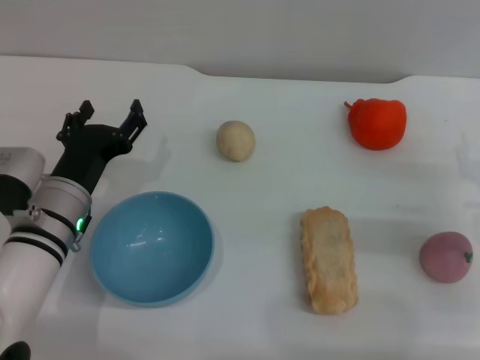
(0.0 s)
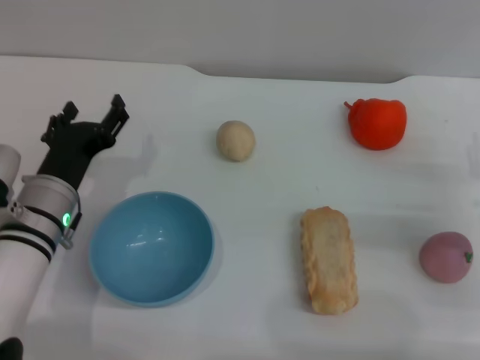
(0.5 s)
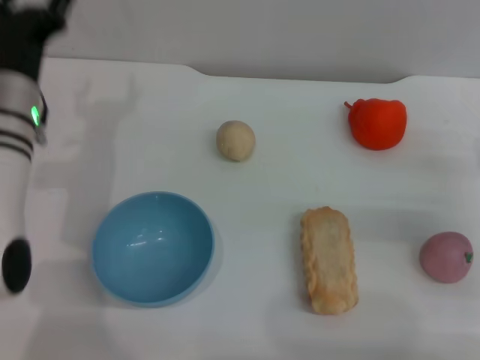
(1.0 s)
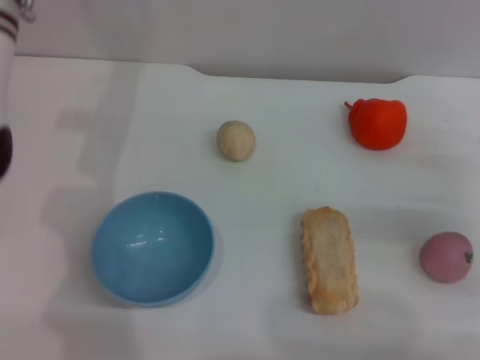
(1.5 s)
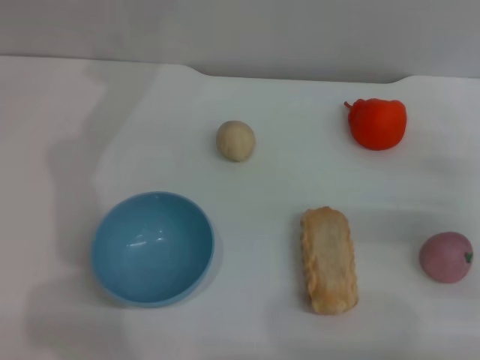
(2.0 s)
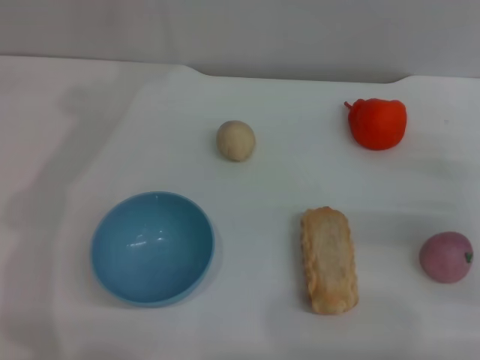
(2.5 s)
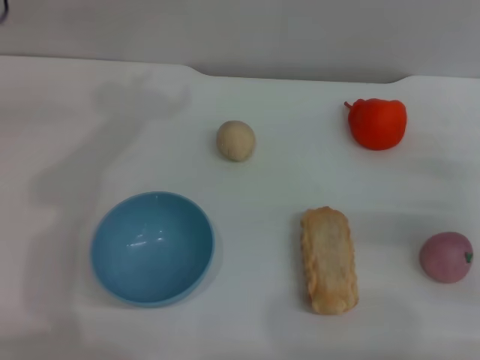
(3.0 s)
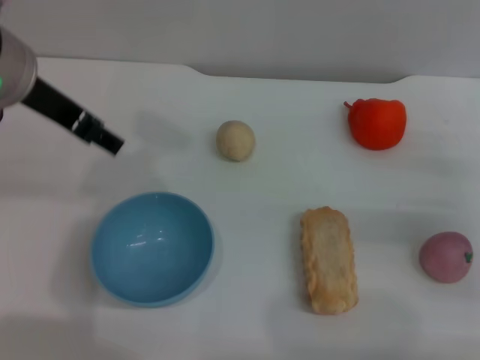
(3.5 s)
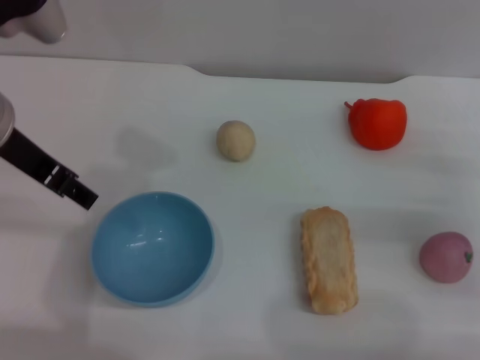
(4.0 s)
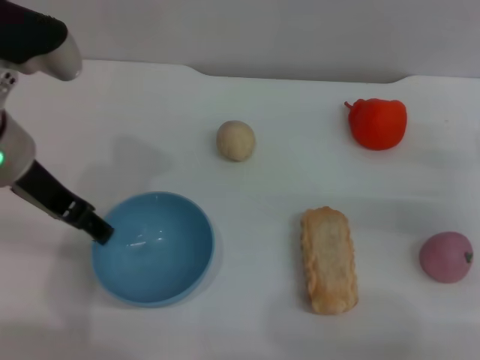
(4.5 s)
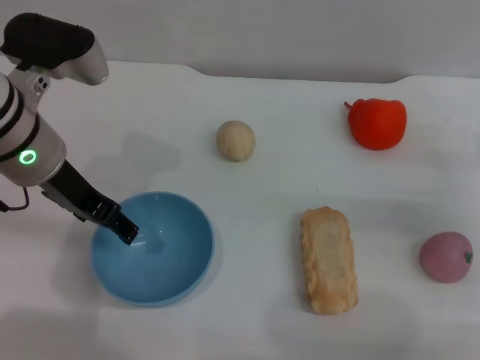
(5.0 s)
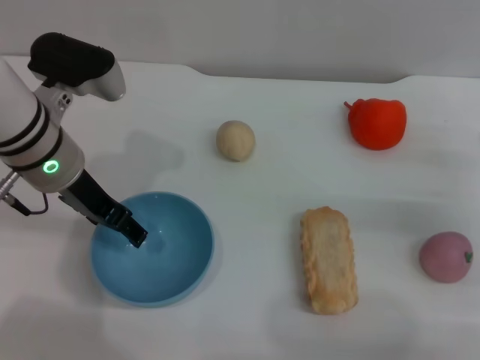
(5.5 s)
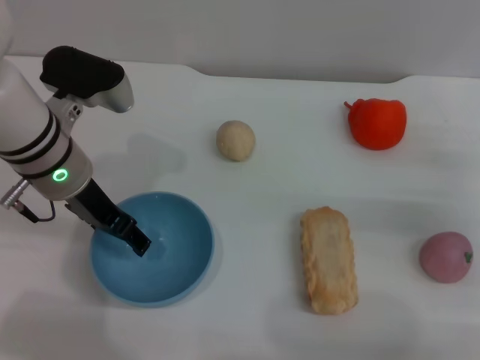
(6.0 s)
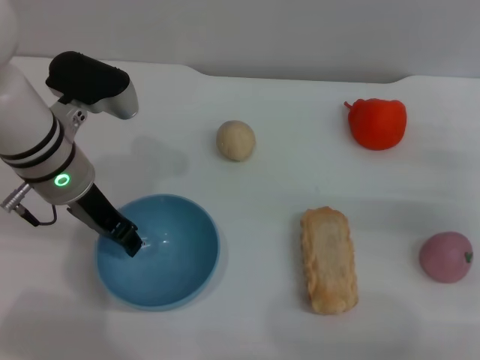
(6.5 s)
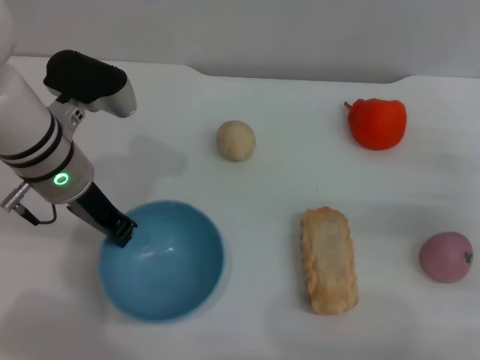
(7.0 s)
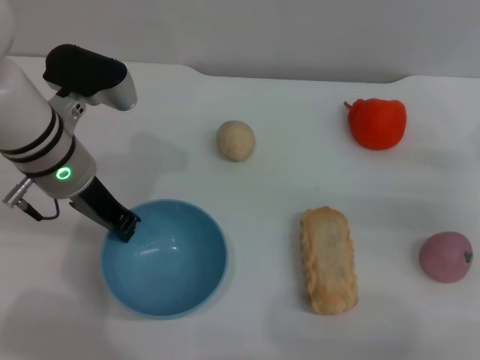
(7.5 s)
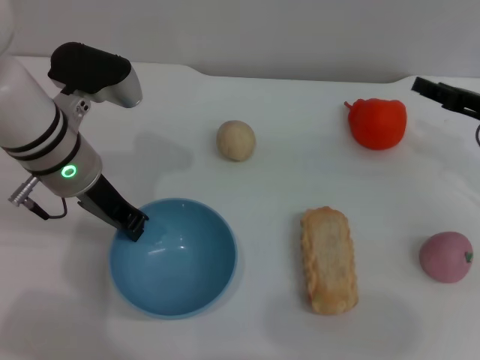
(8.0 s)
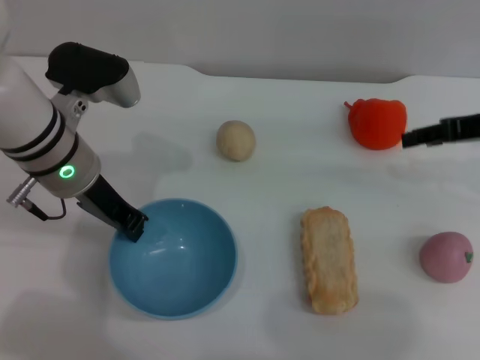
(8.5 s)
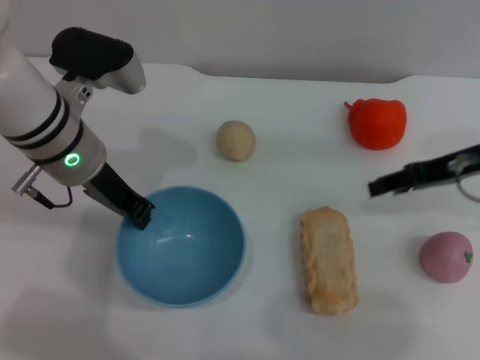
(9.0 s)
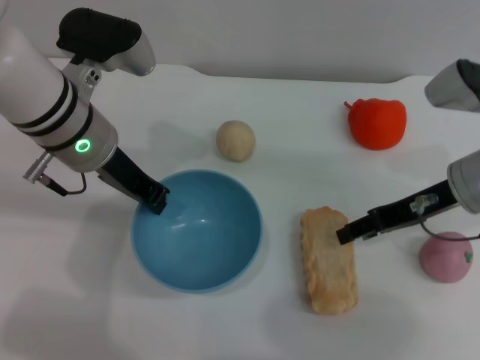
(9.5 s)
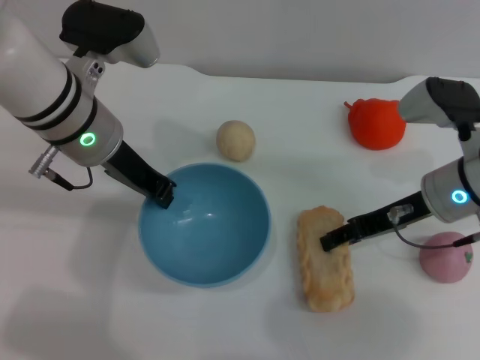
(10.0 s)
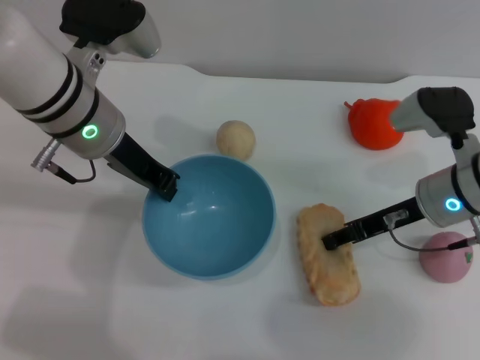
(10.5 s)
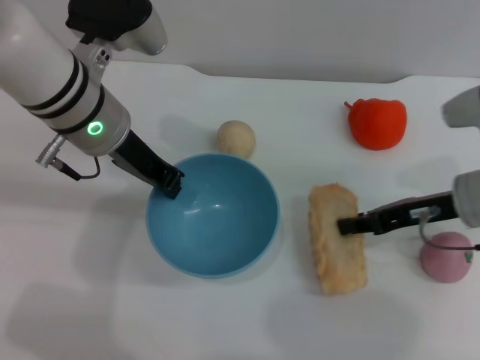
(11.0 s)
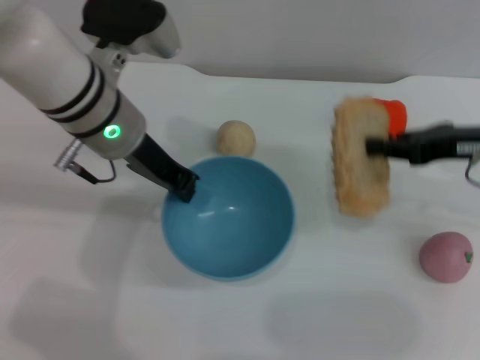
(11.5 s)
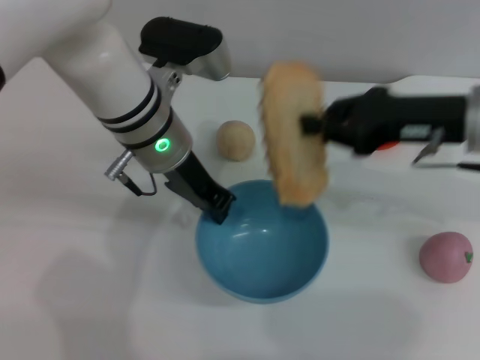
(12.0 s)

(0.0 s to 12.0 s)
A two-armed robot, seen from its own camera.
Task of the whole recording: put the bread into the blue bowl and pour it out repeatedly.
Step, 0.0 s - 9.0 s: Pick up the bowl with the left gripper.
Step, 9.5 s - 11.5 s: Pick up the bread with the right gripper.
0.0 s - 2.0 s: The left gripper is displaced upward and forward by roughly 30 cm.
2.0 s - 4.0 s: The left gripper is displaced backward by roughly 15 cm.
4.0 s - 6.0 s: The left gripper is displaced downward by some 10 cm.
6.0 s - 8.0 s: The right gripper moves forward, some 5 cm. Meanwhile the left gripper closes up.
8.0 s - 10.0 s: The right gripper goes some 10 cm to the left.
10.0 s - 12.0 s: The left gripper travels to the right by roughly 5 cm; the right gripper heads upward, covering about 10 cm, and closes its fingers.

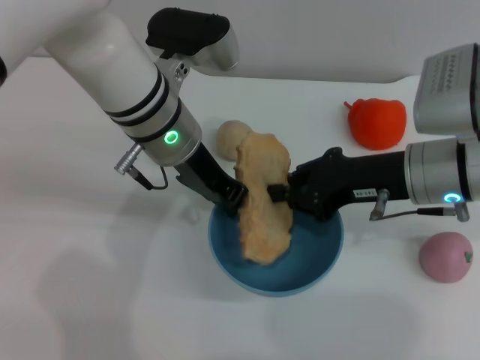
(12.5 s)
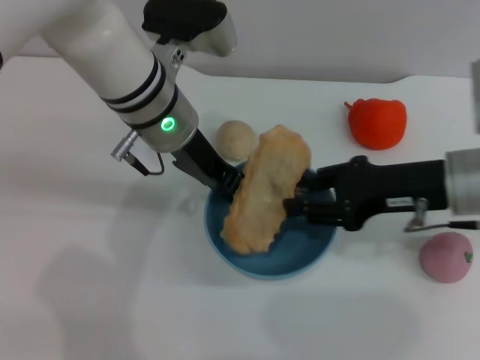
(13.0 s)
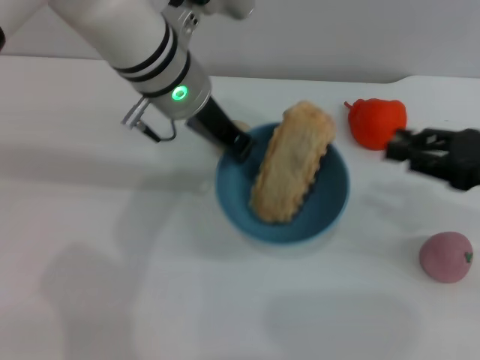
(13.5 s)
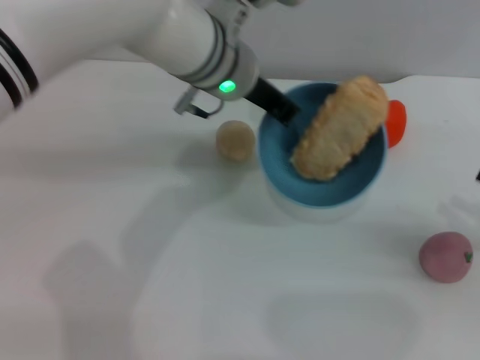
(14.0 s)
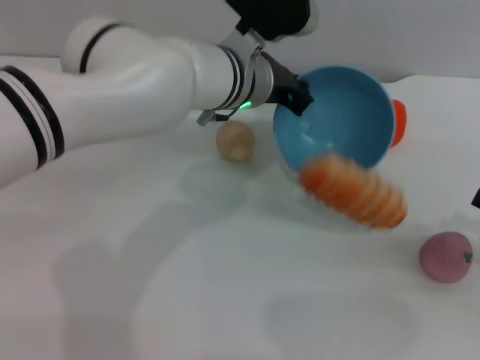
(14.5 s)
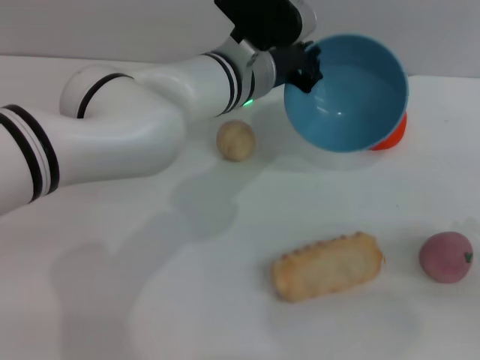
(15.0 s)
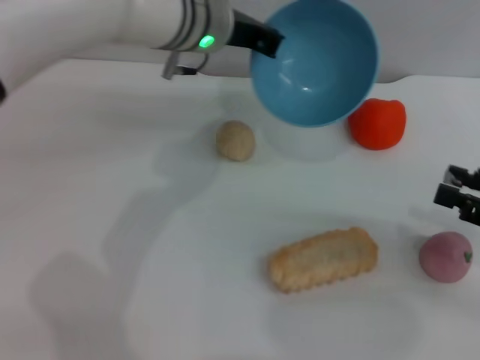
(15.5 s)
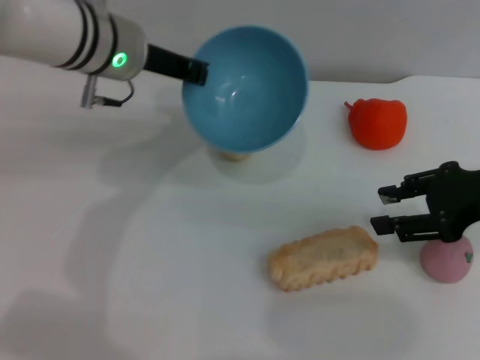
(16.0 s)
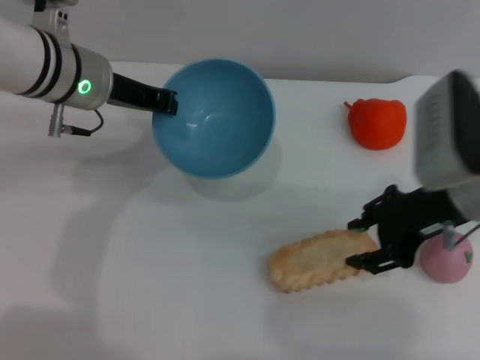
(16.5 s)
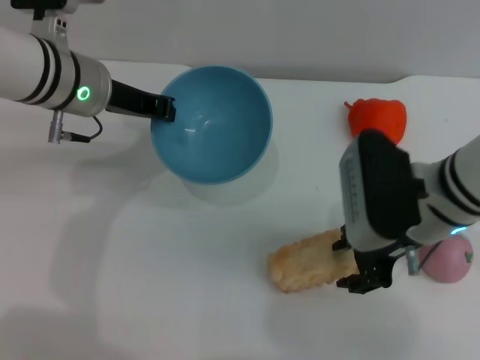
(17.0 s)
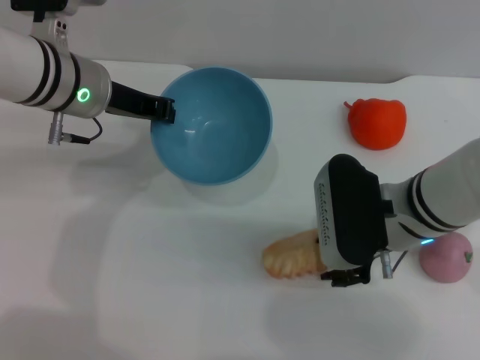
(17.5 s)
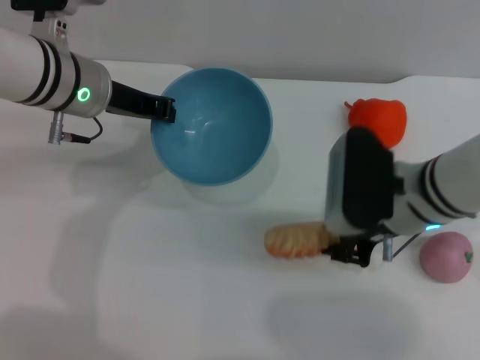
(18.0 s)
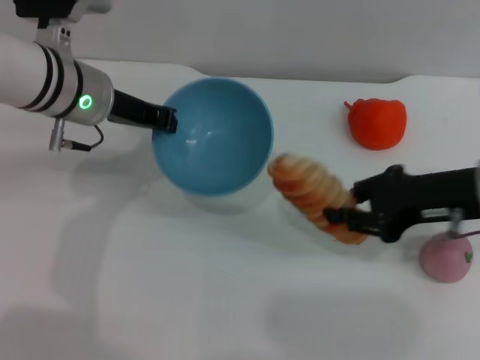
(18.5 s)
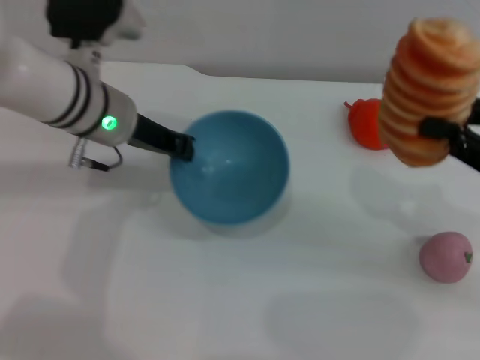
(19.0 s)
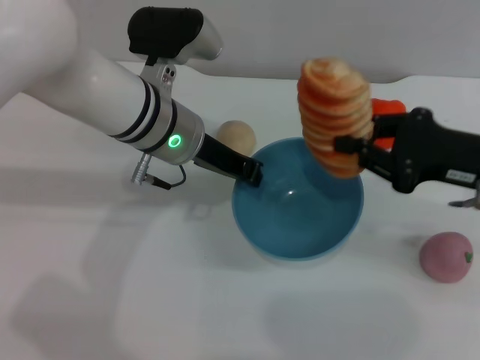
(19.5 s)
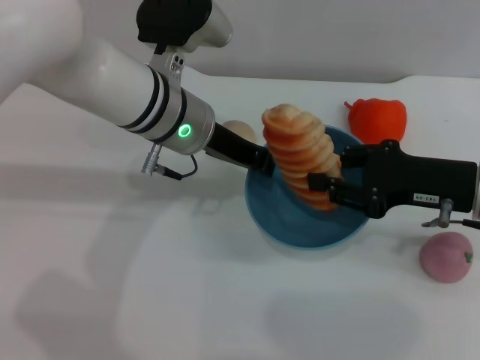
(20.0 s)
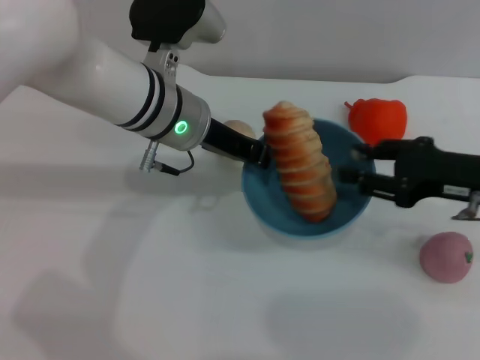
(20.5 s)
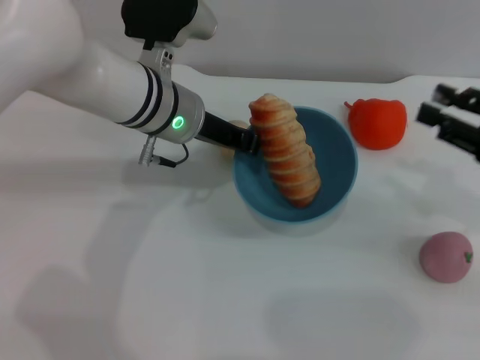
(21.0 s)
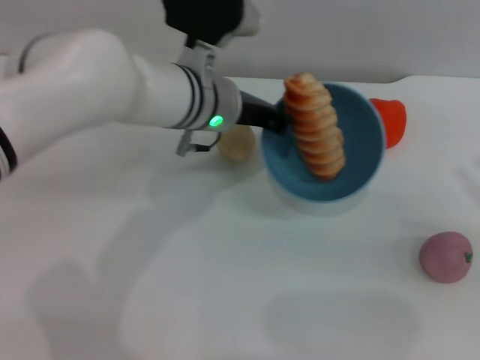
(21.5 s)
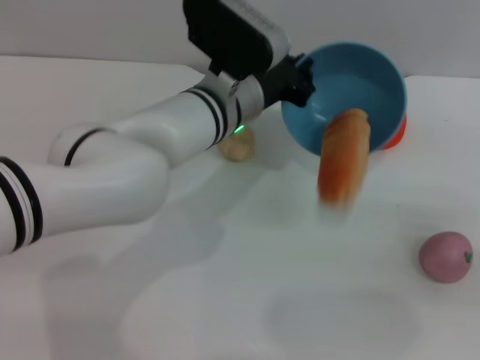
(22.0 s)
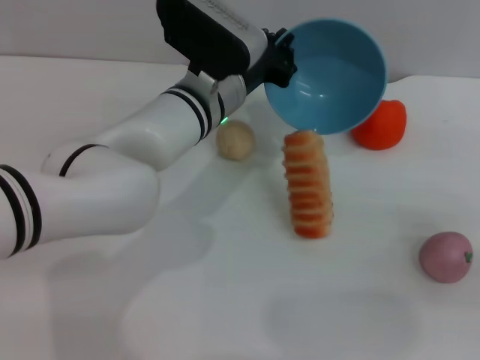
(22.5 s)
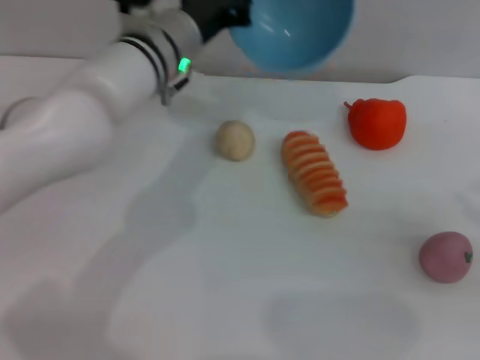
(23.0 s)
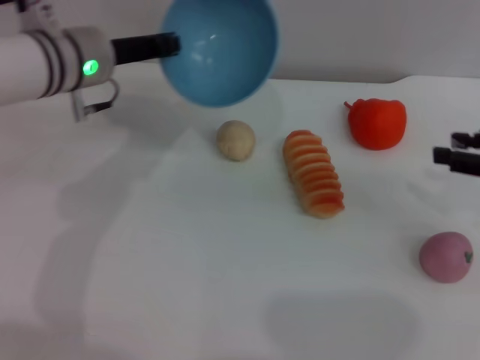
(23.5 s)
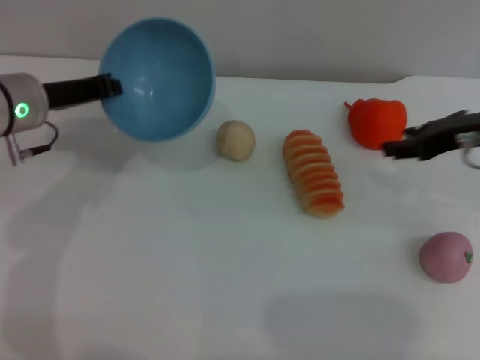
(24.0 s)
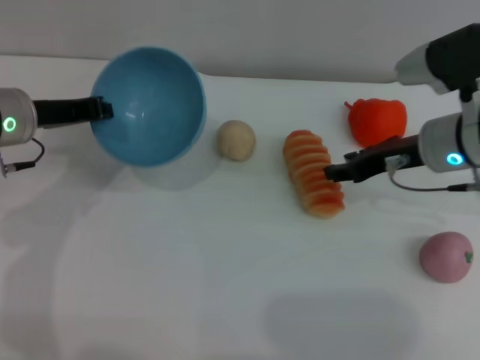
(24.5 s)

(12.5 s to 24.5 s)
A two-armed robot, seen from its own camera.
Task of the whole recording: put the bread into the blue bowl and pour it out repeatedly.
Step, 13.5 s - 15.0 s: Pour the bread out of the bowl.
Step, 15.5 s - 18.0 s: Pick up the bread with the right gripper.
Step, 18.5 s - 20.5 s: Place the bread into the bowl.
Step, 21.0 s - 23.0 s: Pour the bread out of the bowl.
12.5 s - 14.5 s: The right gripper goes some 20 cm to the right and backward, and opens its fingers. Meanwhile the left gripper shifts roughly 5 cm to the right.
14.5 s - 16.5 s: The right gripper goes about 20 cm to the left, forward and upward. The left gripper travels to the left by approximately 15 cm.
16.5 s - 18.5 s: The right gripper closes up.
18.5 s - 20.5 s: The left gripper shifts some 10 cm to the right. The right gripper opens up.
20.5 s - 22.5 s: The right gripper moves to the right and backward, some 15 cm; the left gripper changes place by about 5 cm.
22.5 s - 24.5 s: The right gripper goes about 25 cm to the left and forward; the left gripper heads to the left, covering roughly 20 cm.

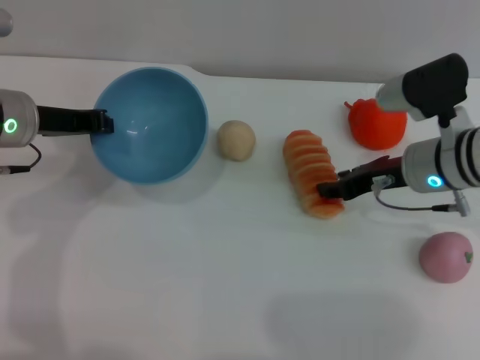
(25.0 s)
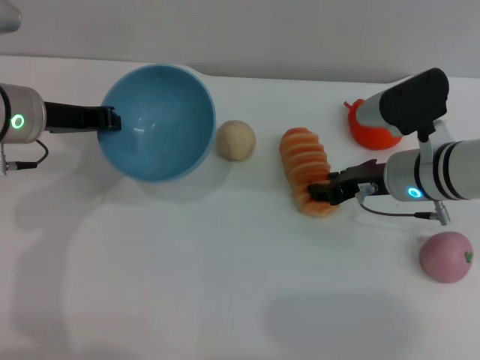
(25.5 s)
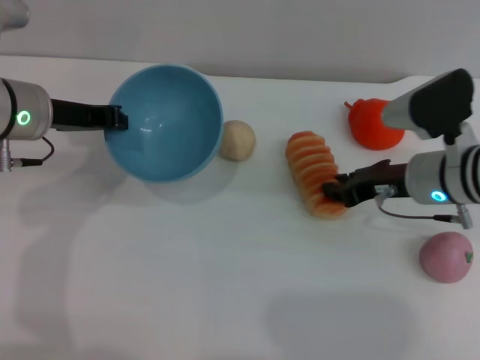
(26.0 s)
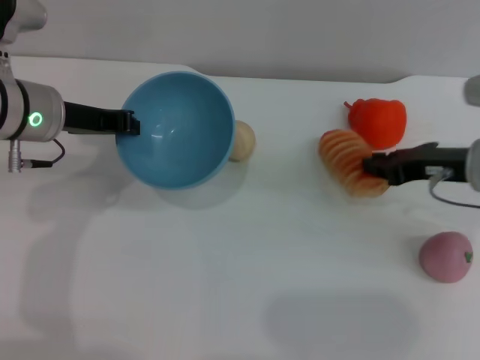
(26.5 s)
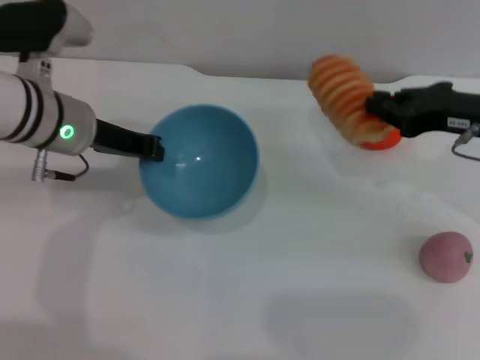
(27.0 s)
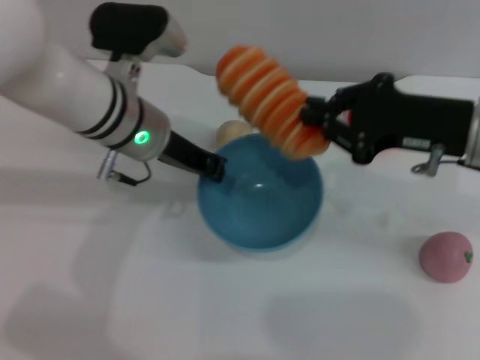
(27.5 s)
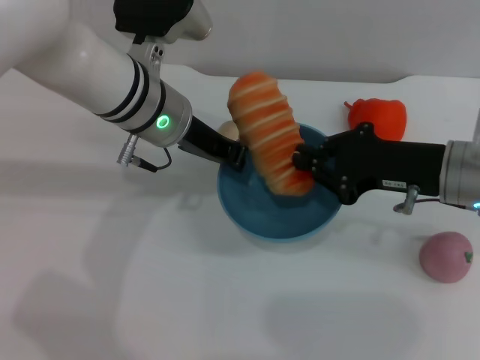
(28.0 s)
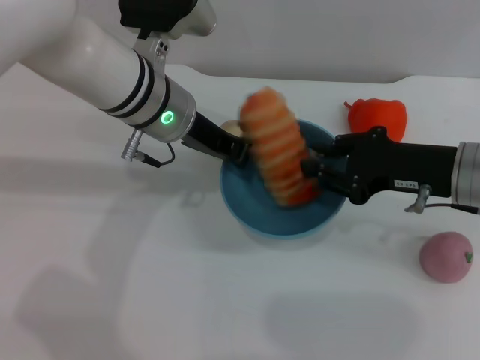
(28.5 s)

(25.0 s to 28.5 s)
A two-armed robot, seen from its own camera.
Task of the whole recording: put the bread into the blue bowl and pour it out repeatedly.
Step, 25.0 s - 27.0 s: Pick up the bread with the right gripper.
25.0 s - 27.0 s: The right gripper heads to the right and upward, covering some 10 cm, and closes its fingers. Meanwhile the left gripper shifts by approximately 5 cm.
27.0 s - 28.5 s: The left gripper travels to the right by about 10 cm. Meanwhile the right gripper moves roughly 5 cm.
